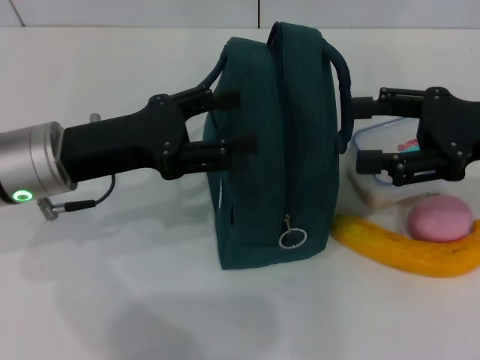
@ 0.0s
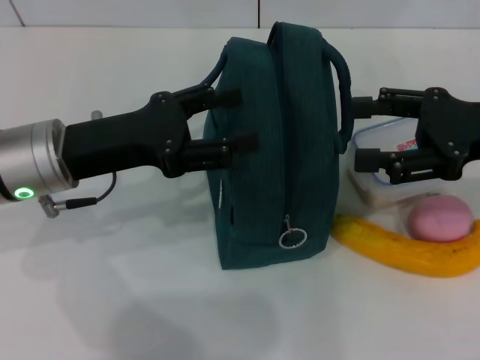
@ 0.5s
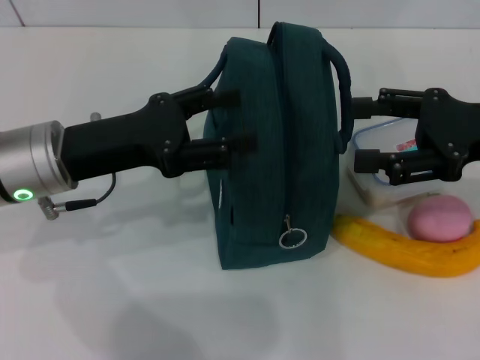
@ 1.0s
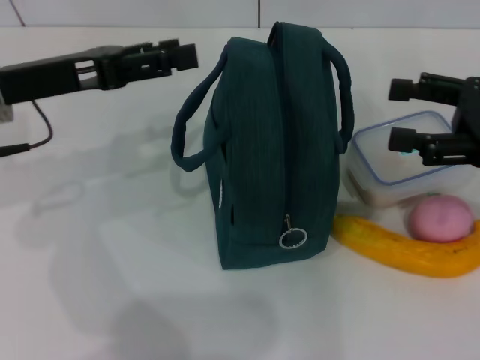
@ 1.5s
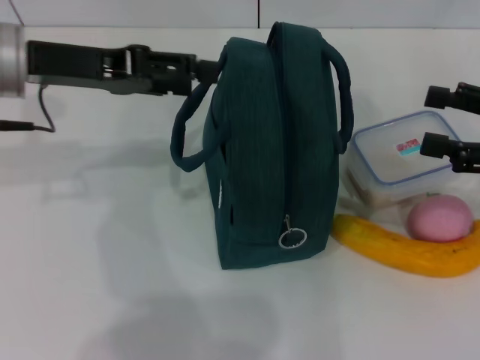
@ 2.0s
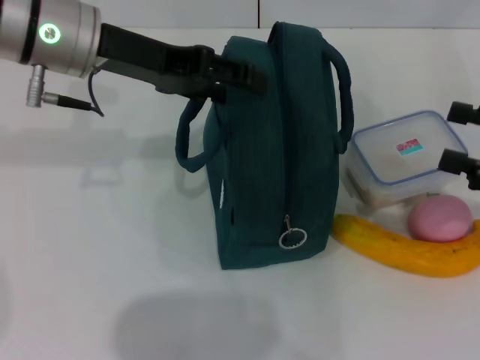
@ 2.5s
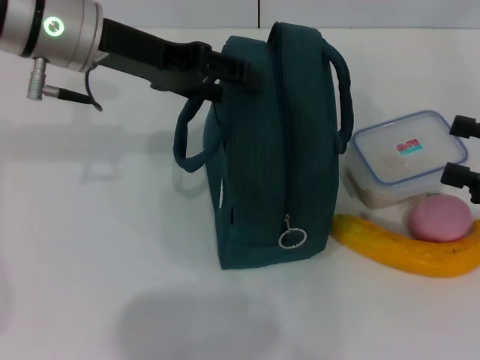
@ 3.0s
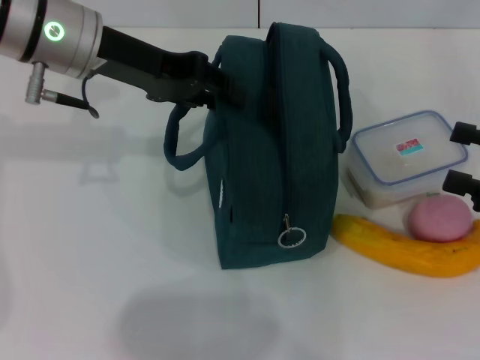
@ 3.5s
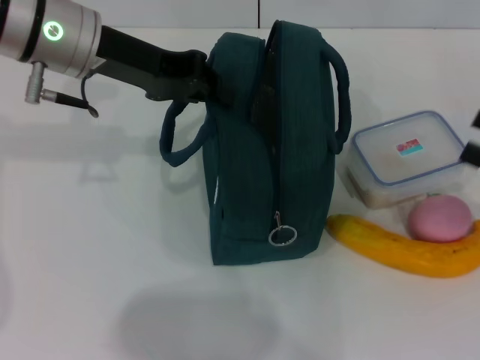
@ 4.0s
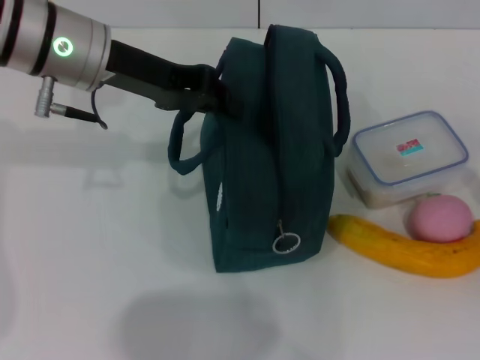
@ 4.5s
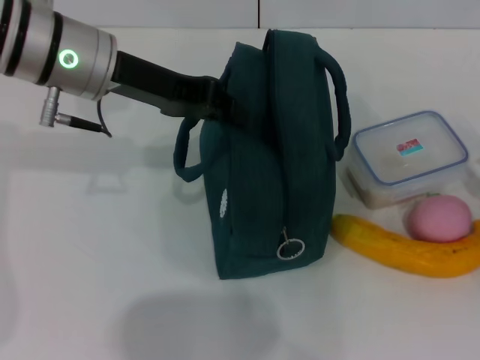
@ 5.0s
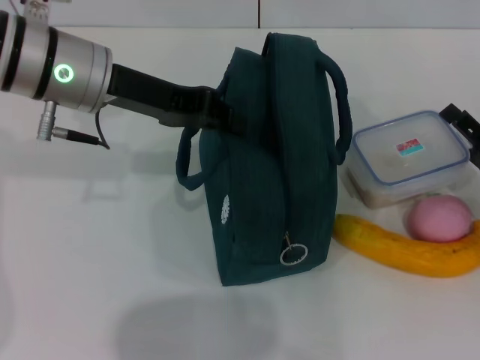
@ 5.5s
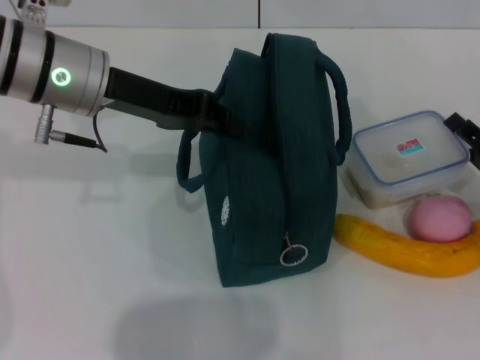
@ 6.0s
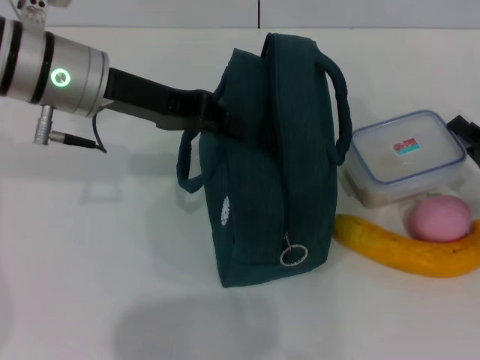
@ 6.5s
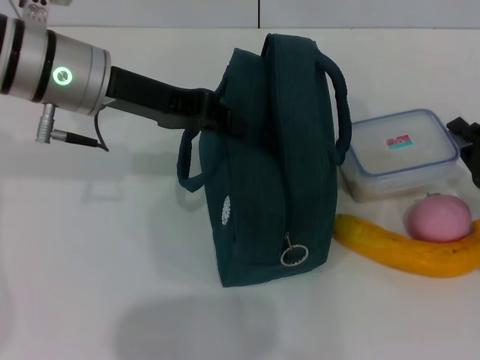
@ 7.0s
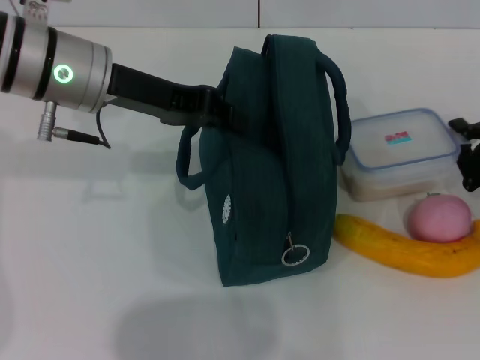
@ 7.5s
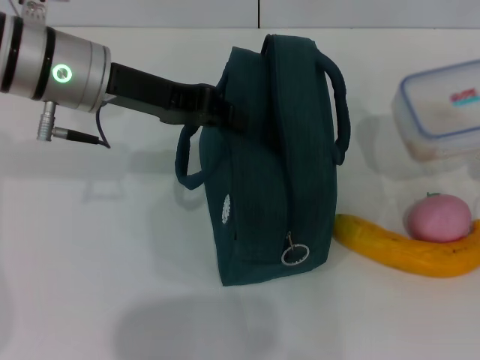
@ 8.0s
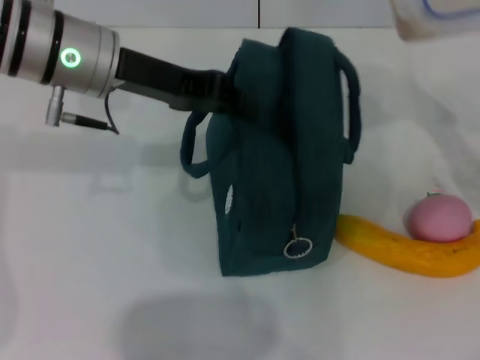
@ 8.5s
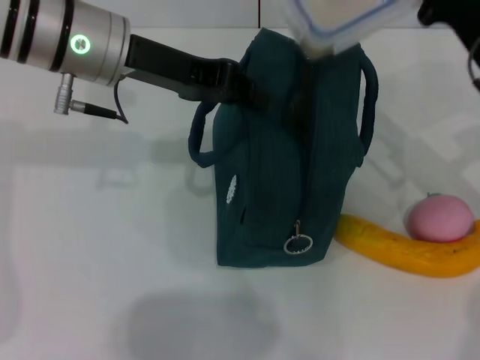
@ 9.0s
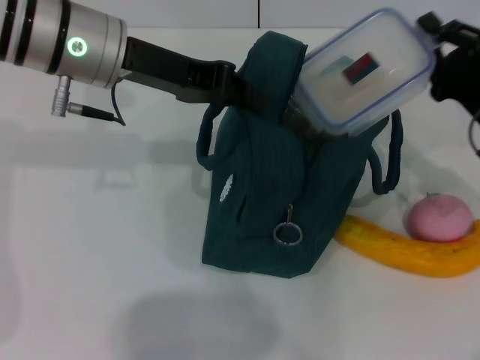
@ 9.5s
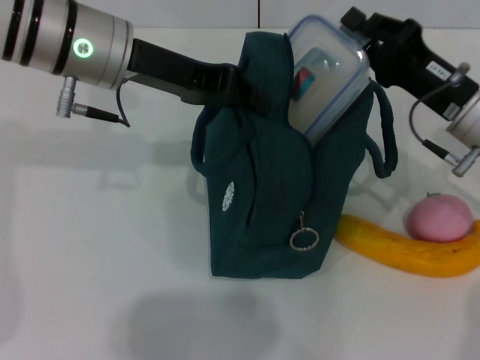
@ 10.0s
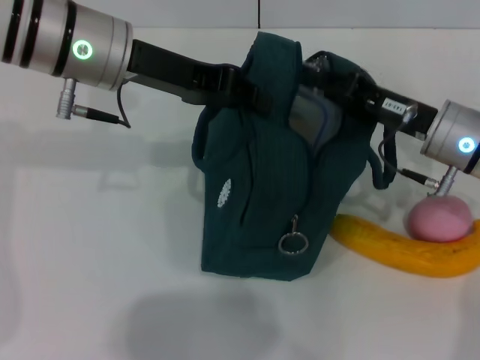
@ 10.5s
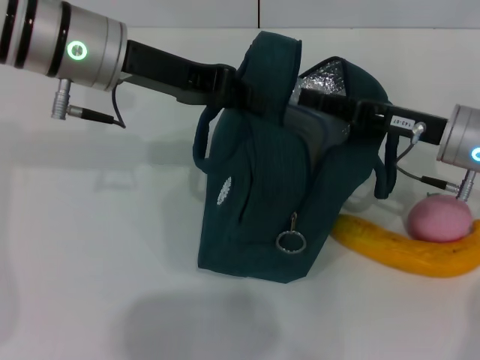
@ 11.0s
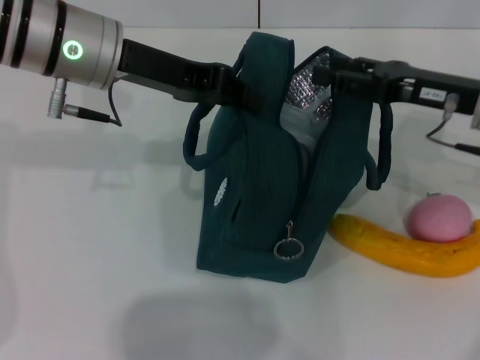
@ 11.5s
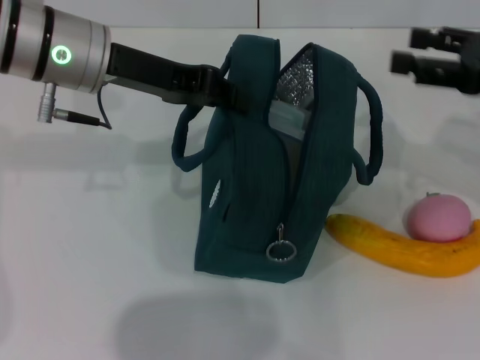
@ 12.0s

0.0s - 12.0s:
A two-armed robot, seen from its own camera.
Step, 0.0s - 4.0s: Hold the lunch bag with your left hand.
Step, 5.0s - 7.0s: Pick up the lunch box with your right hand.
Step, 7.5s - 11.0s: Place the lunch box into the lunch bag with your right hand.
0.0s - 2.0s: The right gripper moves to the right, about 5 cm. The left gripper goes approximately 10 cm upward and forward.
2.0s - 4.0s: The left gripper is displaced to the right by about 5 cm, and closes. The right gripper moves approximately 5 cm.
4.0s - 6.0s: The right gripper travels downward by approximately 10 cm.
6.0s - 8.0s: The right gripper closes up.
8.0s - 10.0s: The right gripper shifts approximately 15 cm to the left, forward and upward.
10.0s - 12.0s: The right gripper is displaced upward and to the right by approximately 10 cm, and opens up.

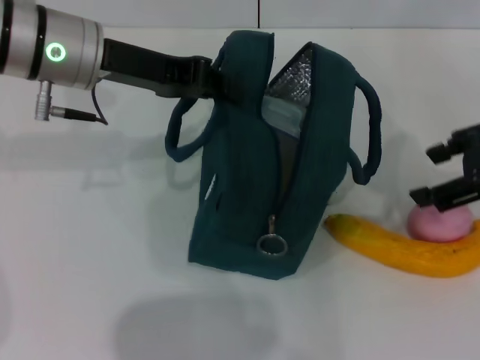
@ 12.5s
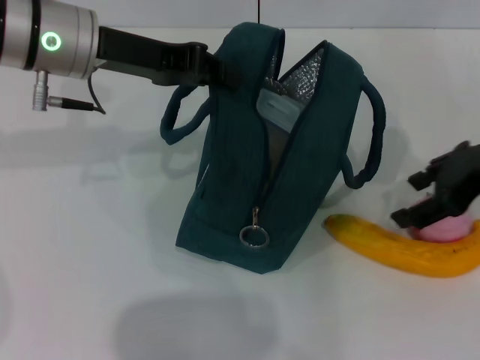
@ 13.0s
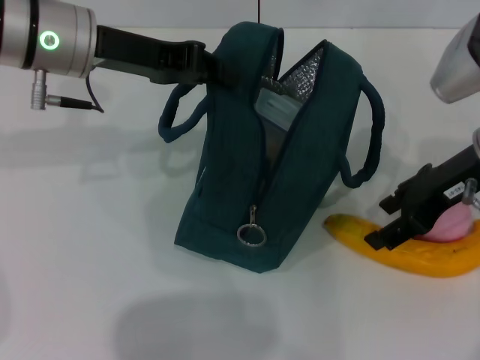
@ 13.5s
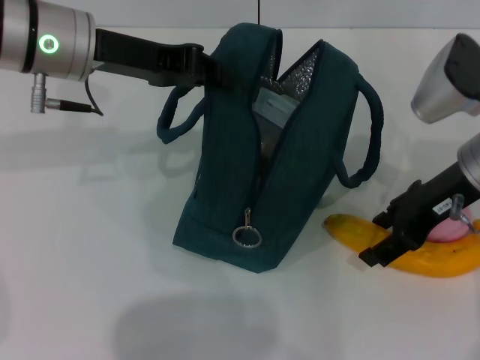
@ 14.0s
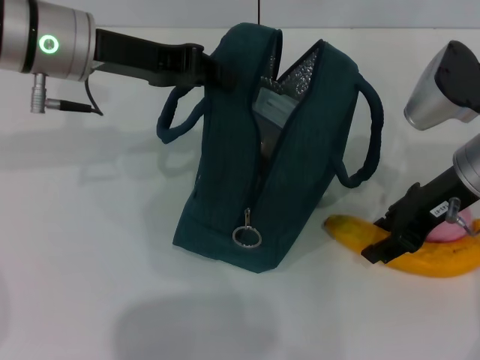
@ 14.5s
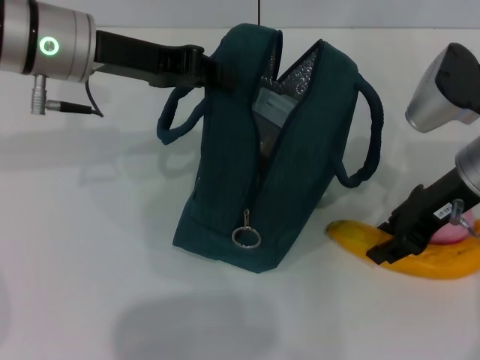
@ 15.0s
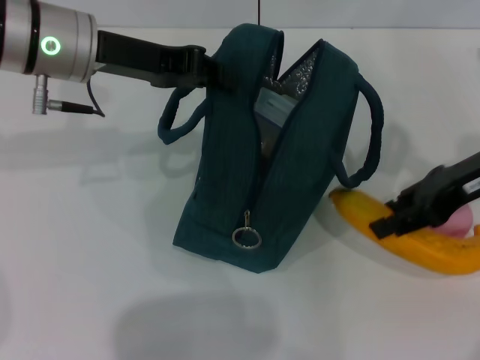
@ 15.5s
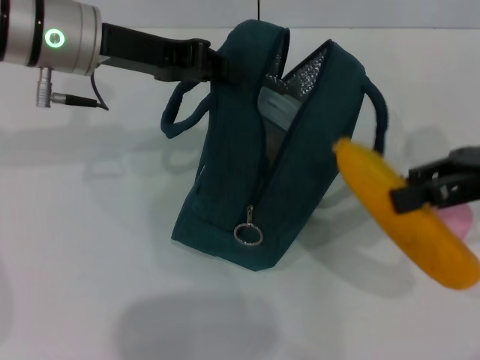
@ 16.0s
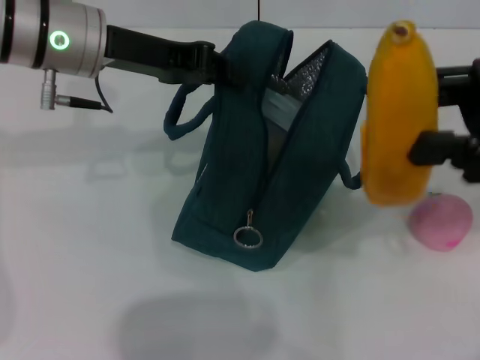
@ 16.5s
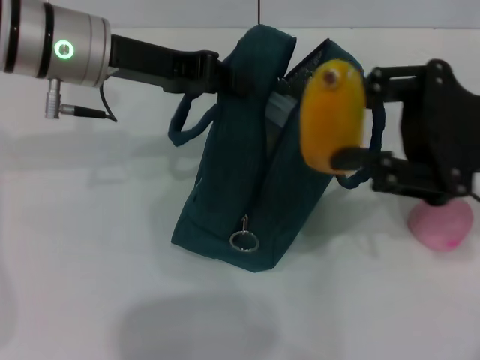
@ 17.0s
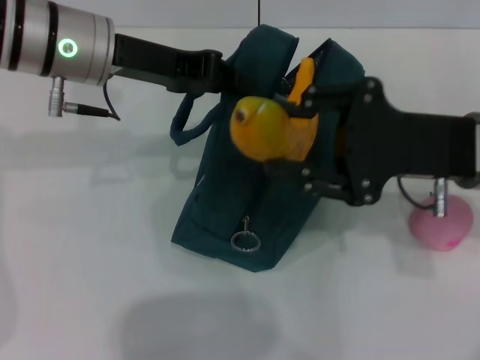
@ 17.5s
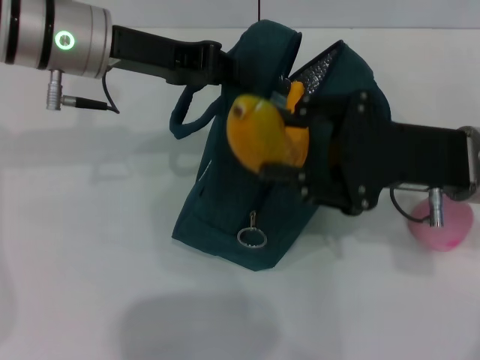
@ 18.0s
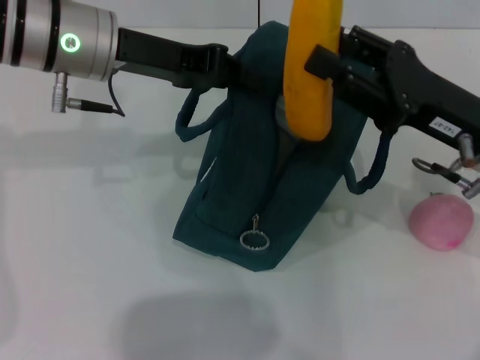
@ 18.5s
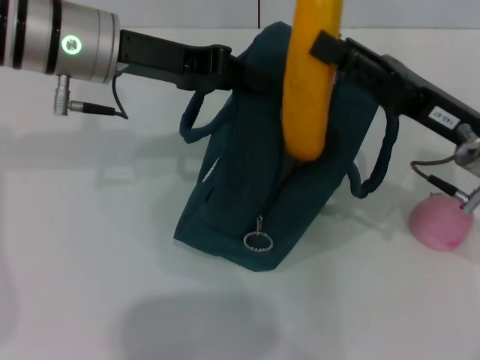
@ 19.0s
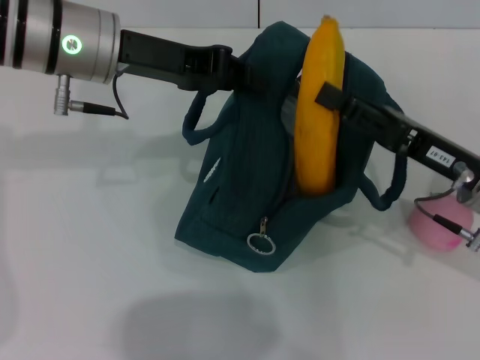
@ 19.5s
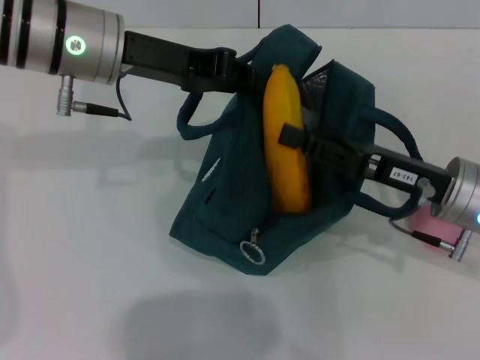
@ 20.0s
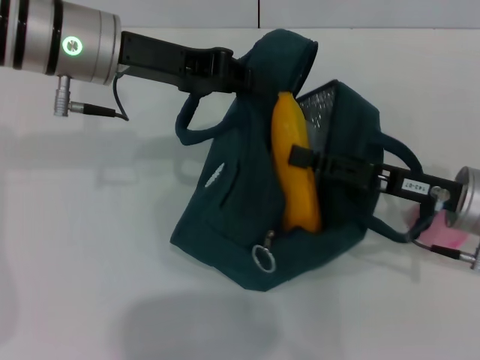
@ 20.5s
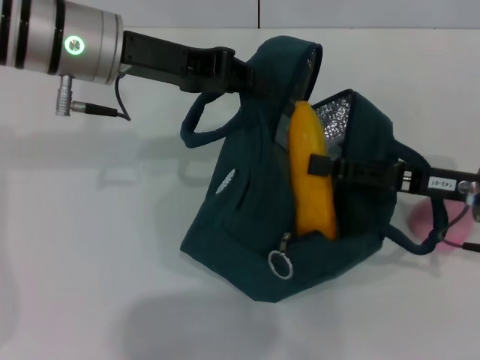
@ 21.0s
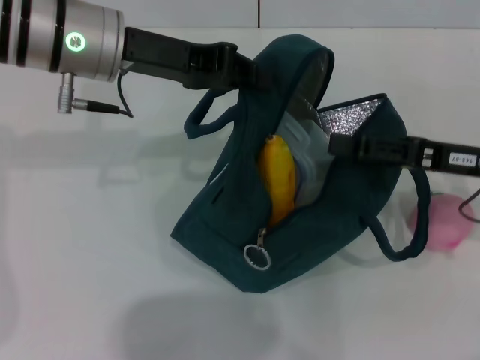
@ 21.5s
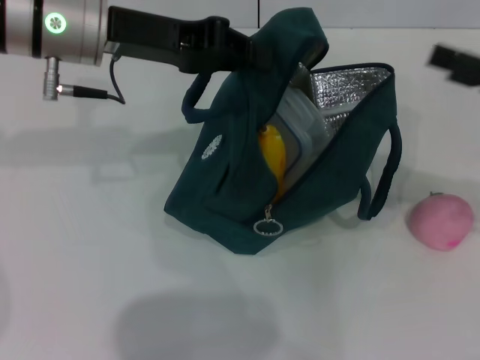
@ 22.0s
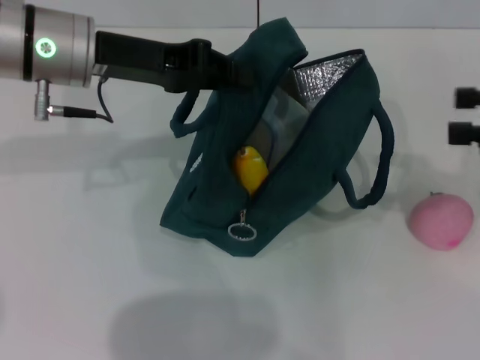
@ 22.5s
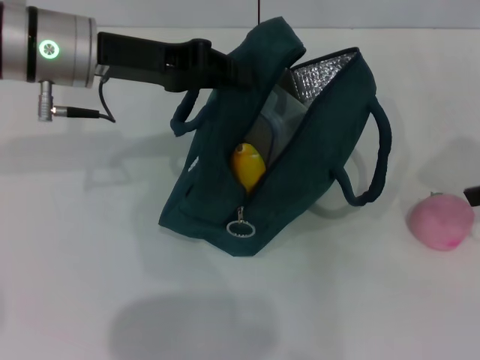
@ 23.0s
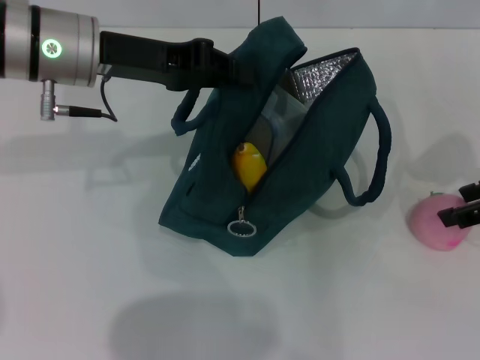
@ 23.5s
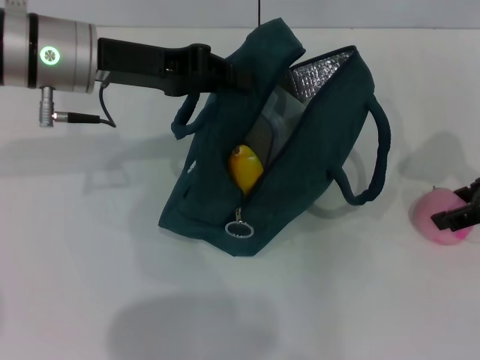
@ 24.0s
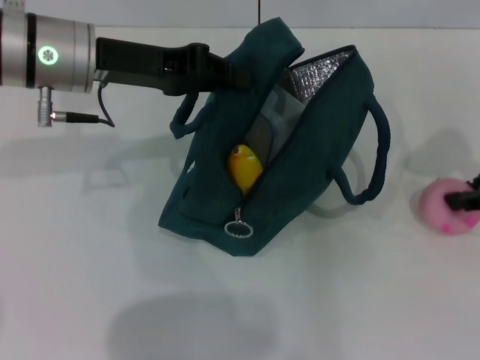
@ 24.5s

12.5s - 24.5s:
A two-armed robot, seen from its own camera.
Step, 12.5s - 14.5s: Take the banana with your right hand.
Step, 15.0s - 21.5s: Put the banana into the lunch bag with your right hand.
Step, 22.0s - 24.0s: Grab the peach with your right hand.
12.5s - 14.5s: The right gripper heads downward and to the left, covering approximately 10 cm.
14.5s - 16.5s: The right gripper travels to the right and upward by about 10 cm.
16.5s - 18.5s: The right gripper shifts approximately 10 cm downward and to the left.
18.5s - 20.5s: The right gripper moves about 5 cm.
20.5s - 22.5s: The right gripper shifts roughly 20 cm upward and to the right.
22.5s - 24.5s: The right gripper ends up about 5 cm from where it was, and closes its fingers.

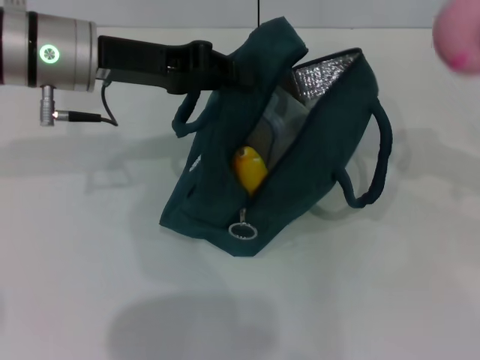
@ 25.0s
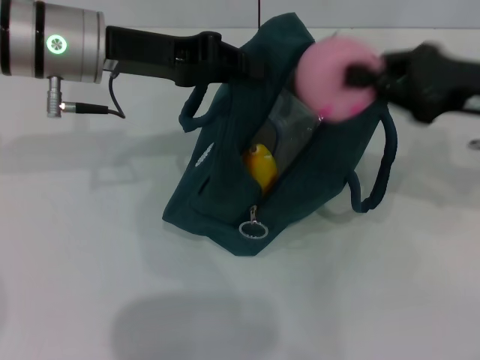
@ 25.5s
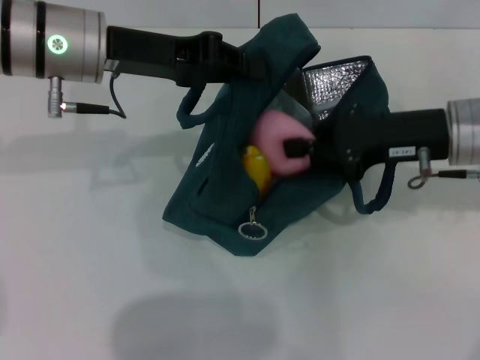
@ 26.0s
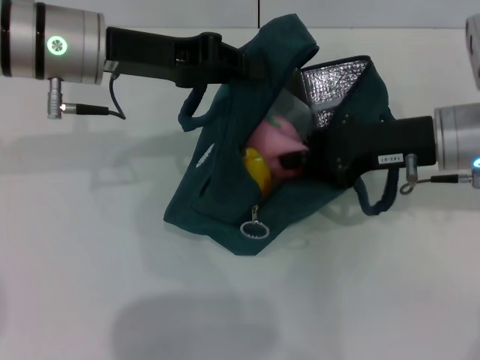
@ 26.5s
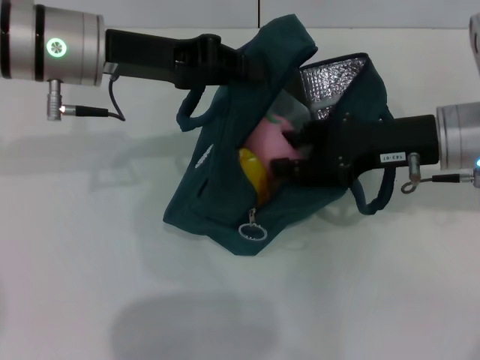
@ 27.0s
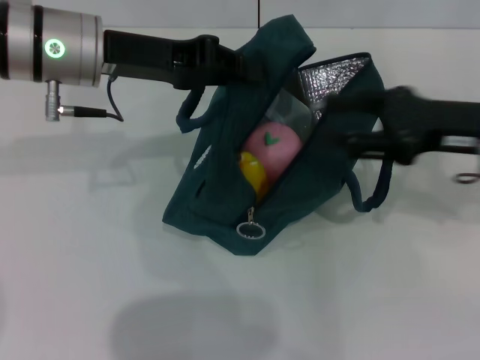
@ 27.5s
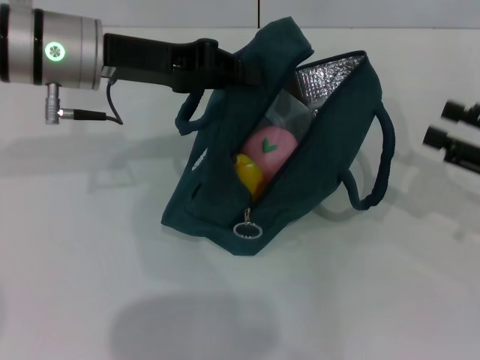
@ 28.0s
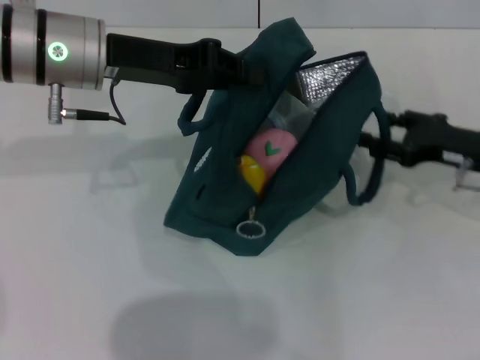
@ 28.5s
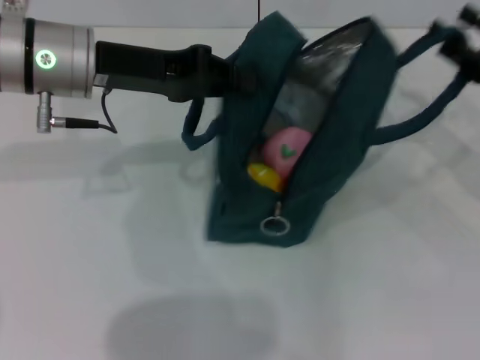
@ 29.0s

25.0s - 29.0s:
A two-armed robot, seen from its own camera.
25.0s - 27.0s: The right gripper moves to the left and downward, approximately 15 cm.
27.0s - 29.0s: The right gripper moves to the right, roughly 10 cm.
